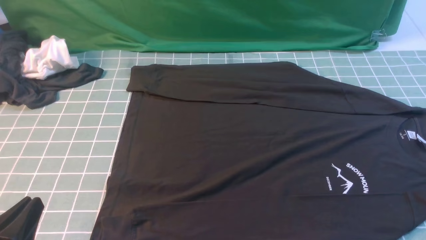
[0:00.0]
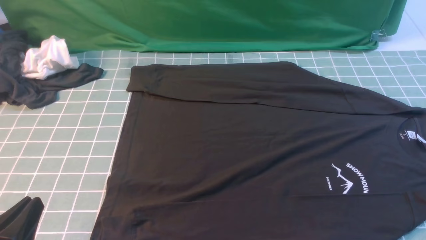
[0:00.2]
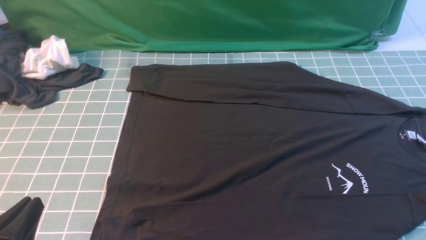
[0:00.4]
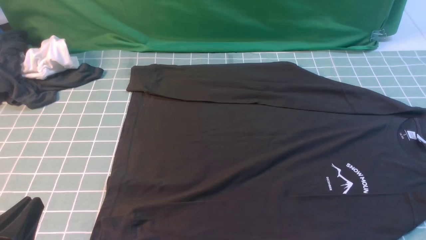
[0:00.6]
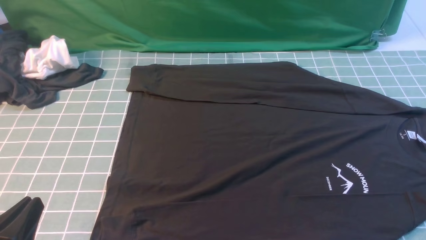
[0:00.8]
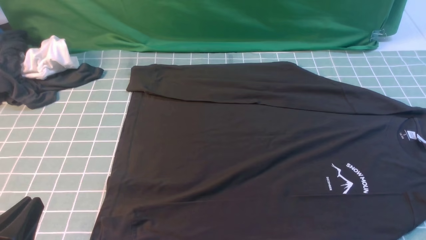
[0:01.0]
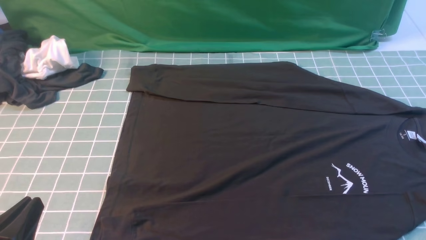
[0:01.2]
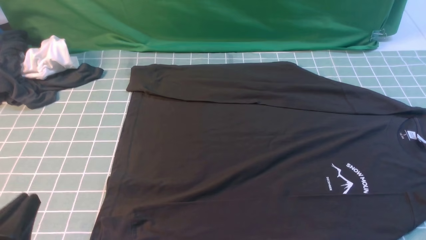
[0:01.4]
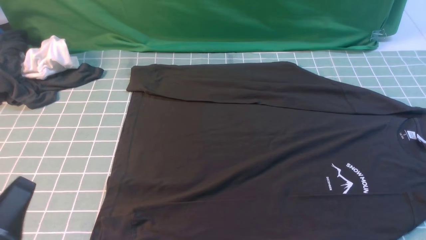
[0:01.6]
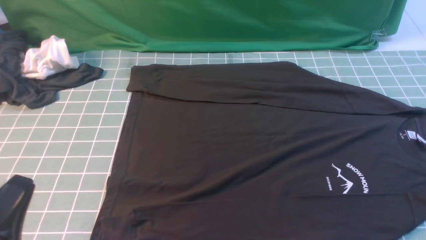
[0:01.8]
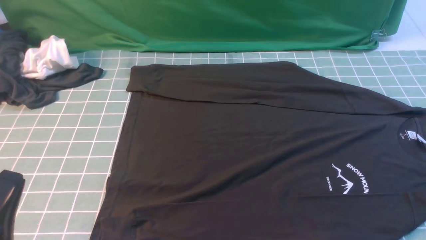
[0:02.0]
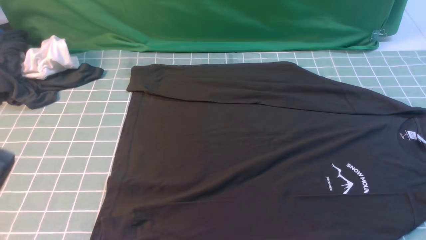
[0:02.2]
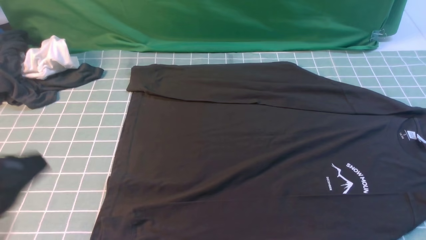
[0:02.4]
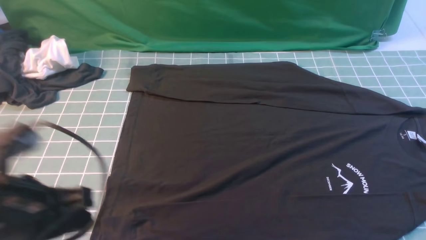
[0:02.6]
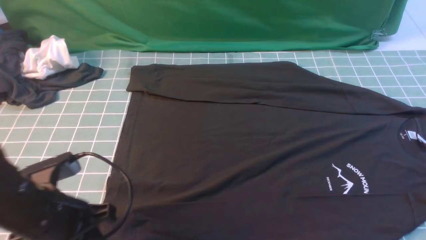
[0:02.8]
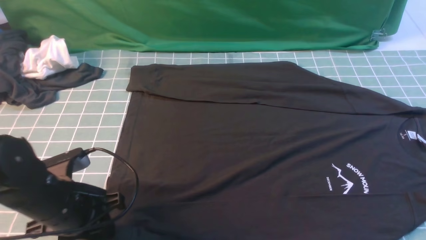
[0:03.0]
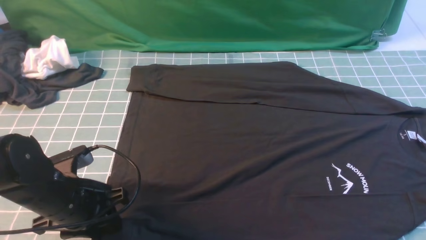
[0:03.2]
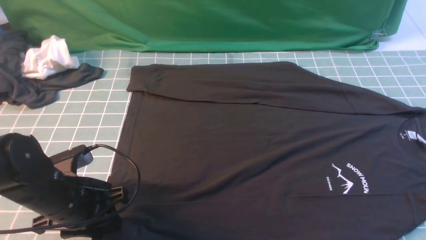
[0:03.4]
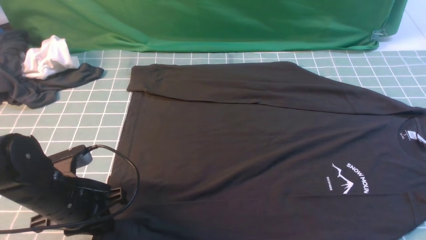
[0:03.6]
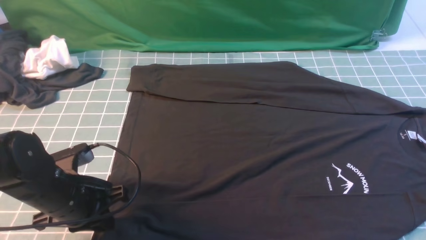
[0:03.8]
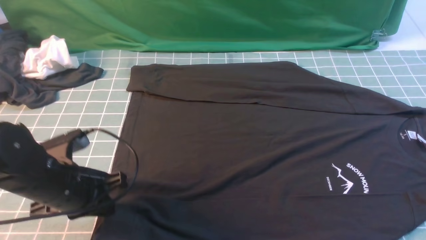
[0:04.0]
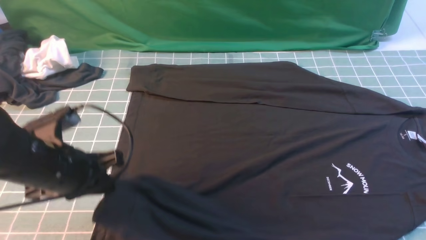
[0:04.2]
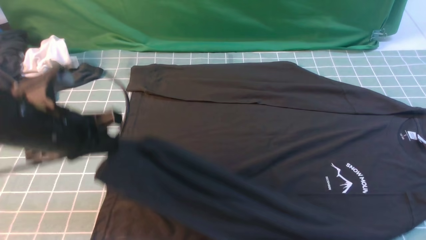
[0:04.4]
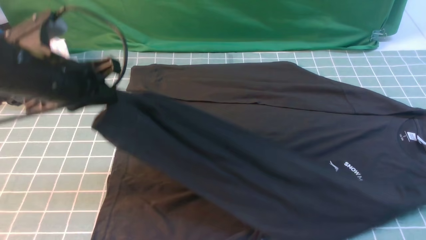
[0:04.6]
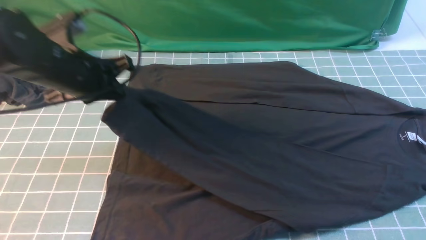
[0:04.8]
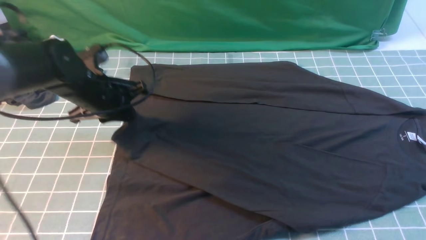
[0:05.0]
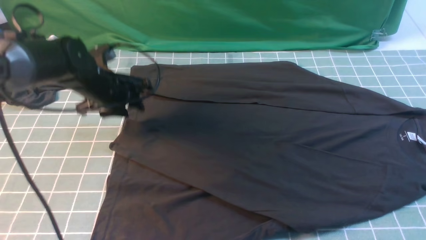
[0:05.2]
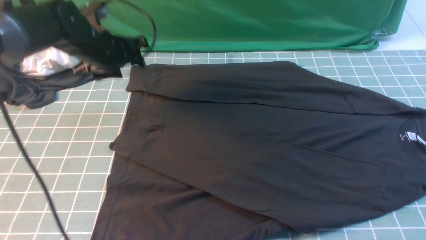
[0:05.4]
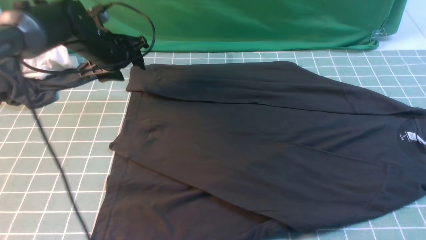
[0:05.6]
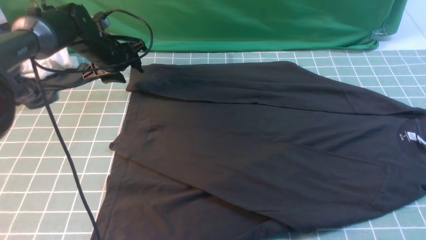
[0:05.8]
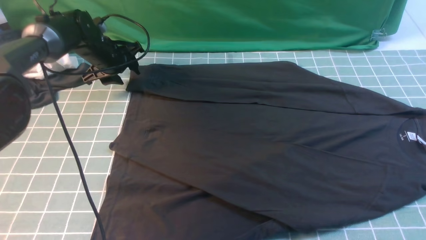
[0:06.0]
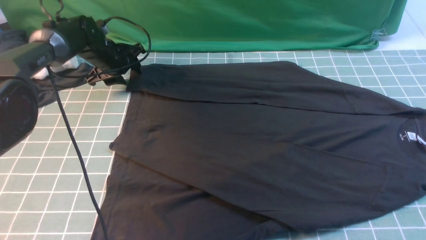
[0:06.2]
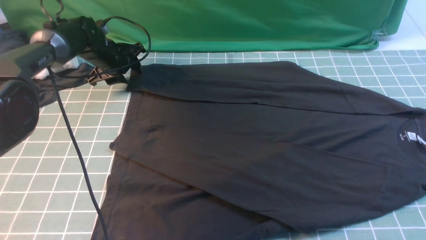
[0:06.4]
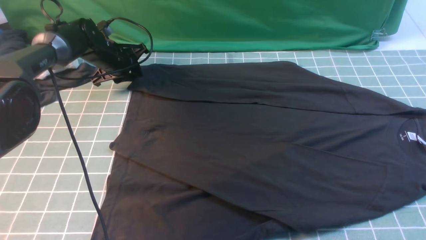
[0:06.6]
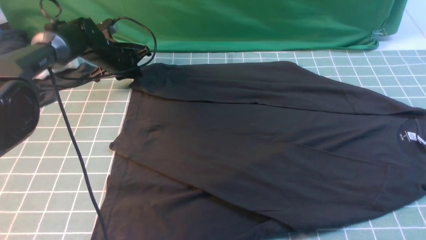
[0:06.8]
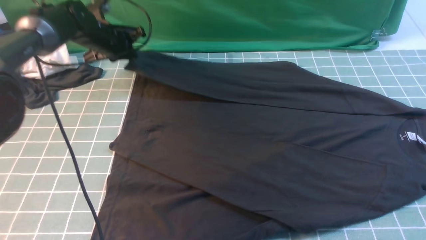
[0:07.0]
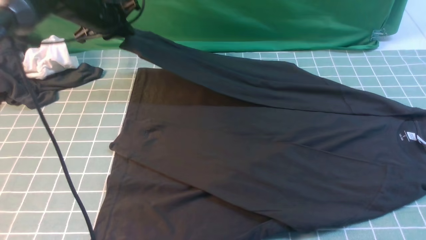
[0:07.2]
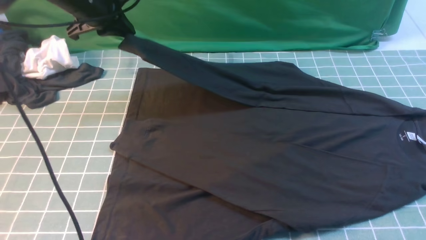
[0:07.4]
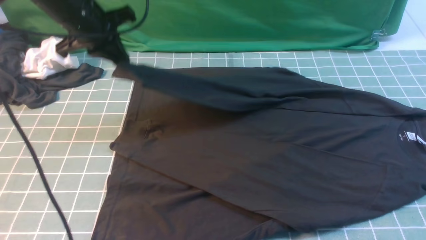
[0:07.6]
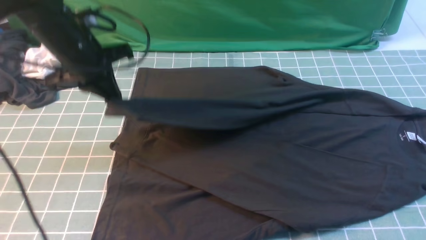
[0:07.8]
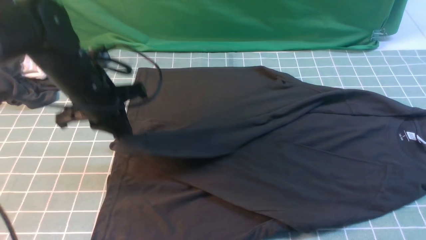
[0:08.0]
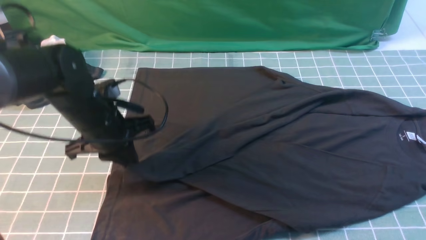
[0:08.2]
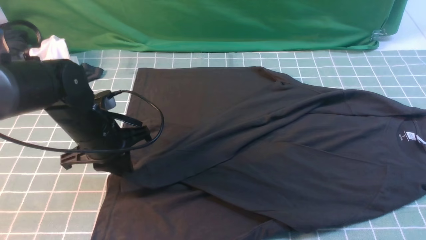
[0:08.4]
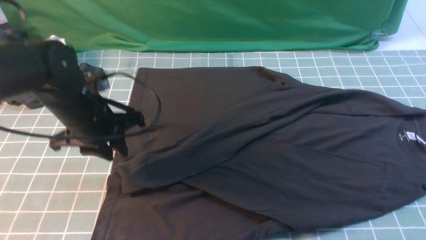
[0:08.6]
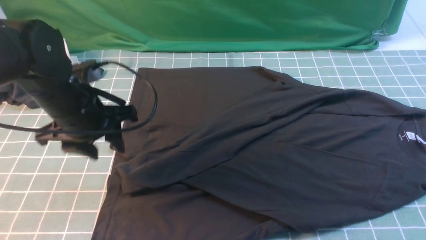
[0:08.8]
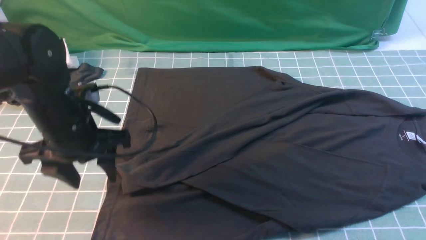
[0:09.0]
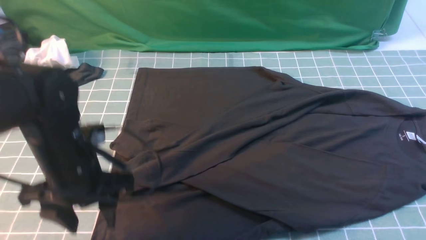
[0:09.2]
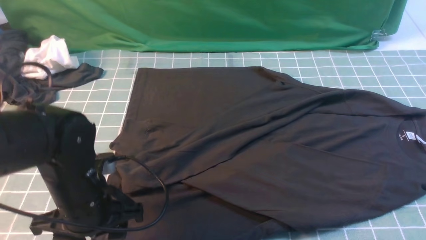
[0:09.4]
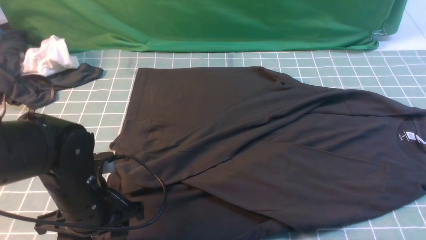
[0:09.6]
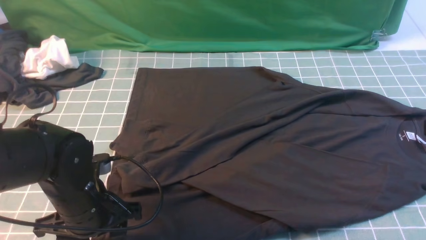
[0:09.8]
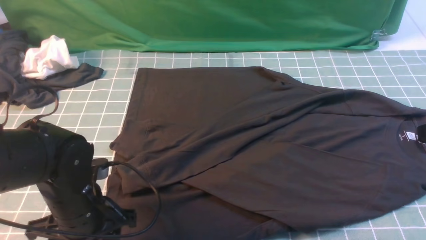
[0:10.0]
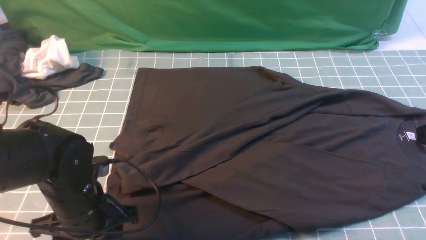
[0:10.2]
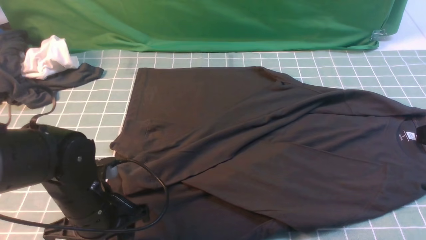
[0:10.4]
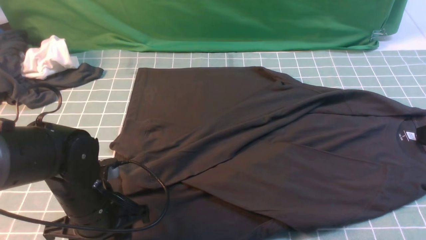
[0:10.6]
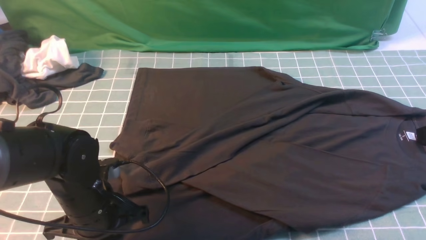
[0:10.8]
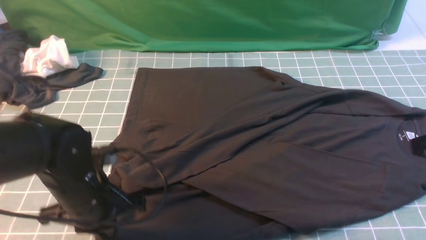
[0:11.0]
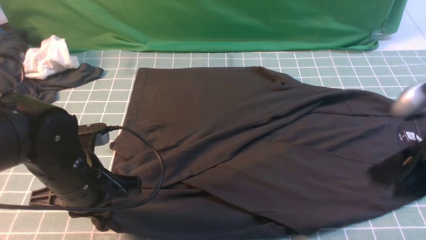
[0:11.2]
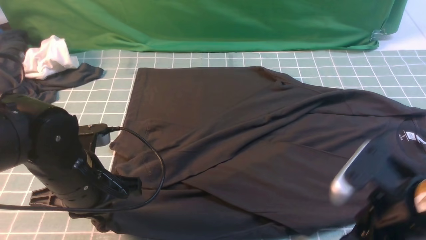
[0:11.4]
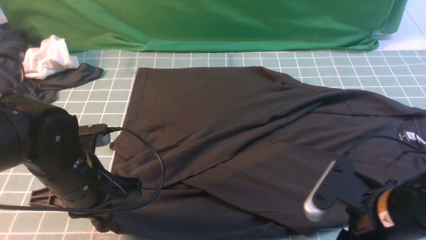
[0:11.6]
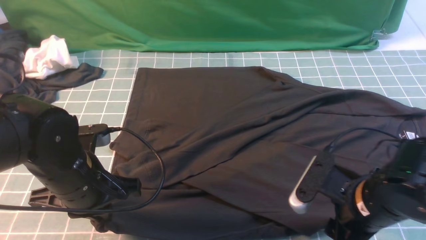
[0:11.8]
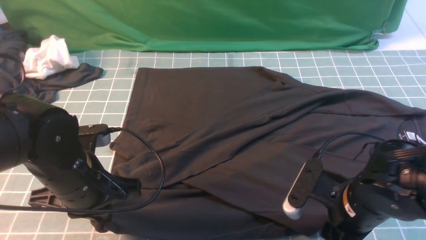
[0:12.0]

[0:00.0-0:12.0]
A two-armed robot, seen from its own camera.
Step, 0:00.0 to 0:04.0: use the left arm to clamp the cuff closest to it.
Step, 0:04.2 to 0:05.2: use the left arm to drag and place the cuff at the centered position on the left edge of the fabric.
Step, 0:05.4 to 0:06.8: use the left arm to clamp the cuff farthest from it.
Step, 0:07.0 to 0:08.4: use the left arm to drag and drop the cuff onto the cuff closest to the left arm.
0:01.6 to 0:03.0: The left gripper heads forward, covering approximately 15 cm. Meanwhile the right gripper goes roughly 15 cm upward and forward, and closes.
0:03.0 to 0:04.4: The left gripper moves upward and forward, approximately 10 cm, and closes its fingers.
0:04.4 to 0:06.0: The left gripper is displaced forward by about 25 cm, and opens.
0:06.0 to 0:07.6: The left gripper shifts some 15 cm upward and backward, and closes its fingers.
0:07.6 to 0:09.0: The left gripper heads backward, covering about 15 cm, and opens up.
0:09.0 to 0:10.4: The left gripper shifts roughly 10 cm downward and backward.
0:10.4 to 0:12.0: The left gripper heads upward, covering about 5 cm, and closes. Meanwhile the right gripper travels downward and to the left by roughly 20 cm, and opens.

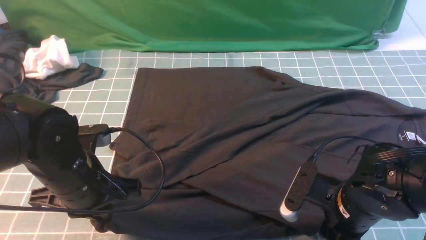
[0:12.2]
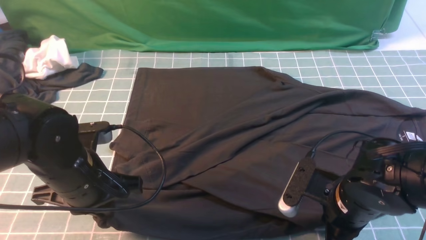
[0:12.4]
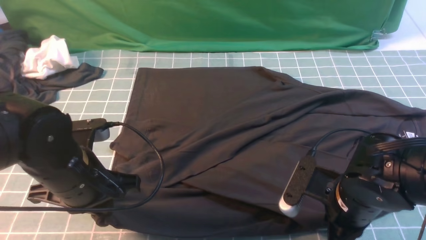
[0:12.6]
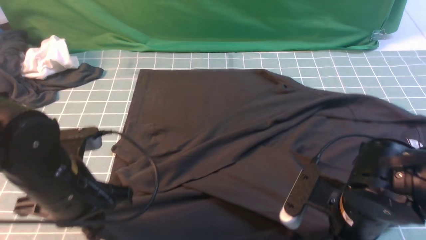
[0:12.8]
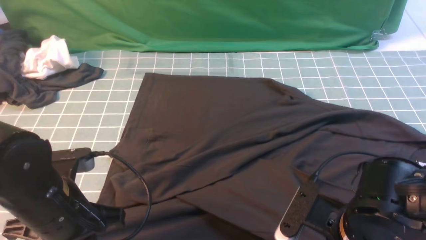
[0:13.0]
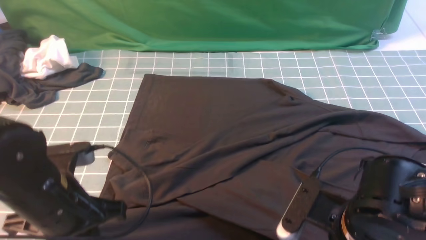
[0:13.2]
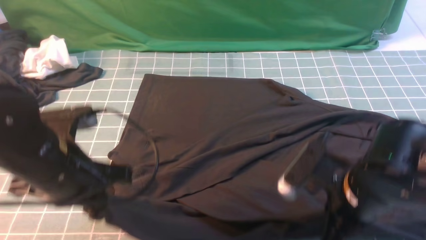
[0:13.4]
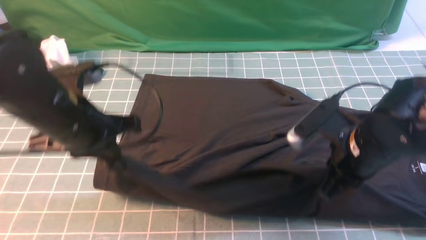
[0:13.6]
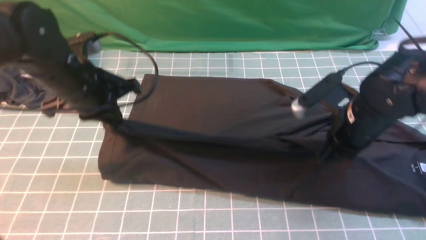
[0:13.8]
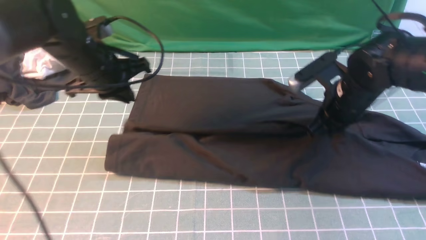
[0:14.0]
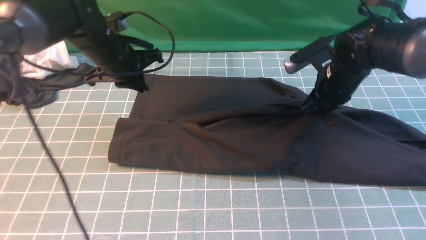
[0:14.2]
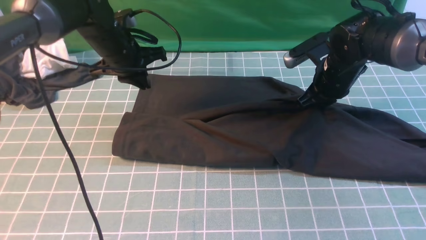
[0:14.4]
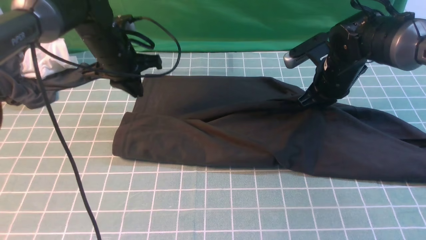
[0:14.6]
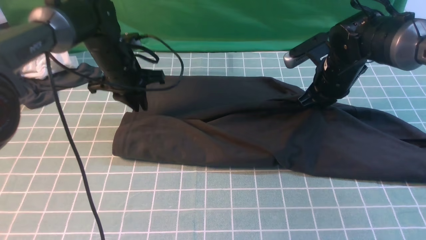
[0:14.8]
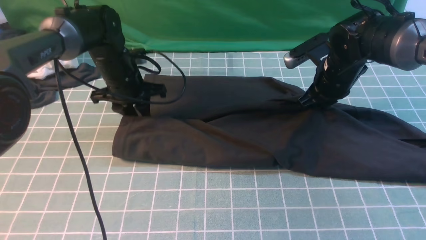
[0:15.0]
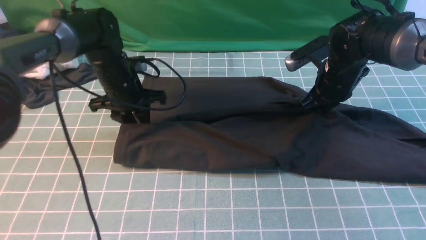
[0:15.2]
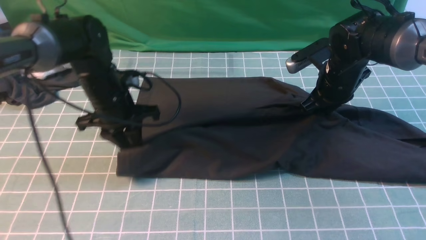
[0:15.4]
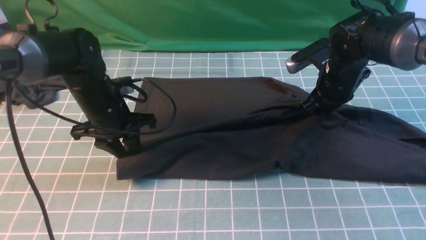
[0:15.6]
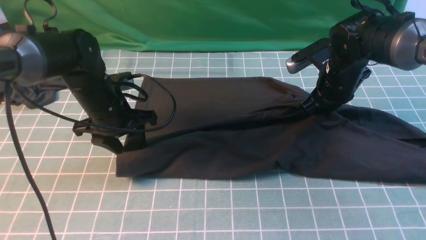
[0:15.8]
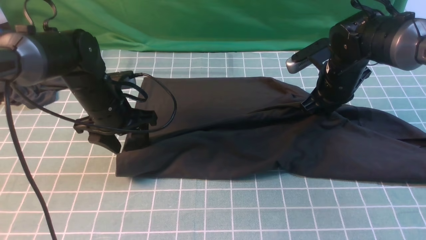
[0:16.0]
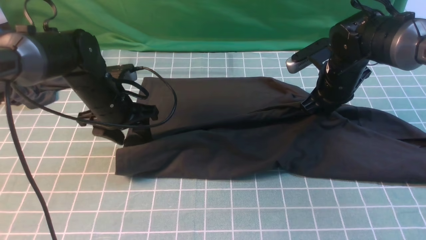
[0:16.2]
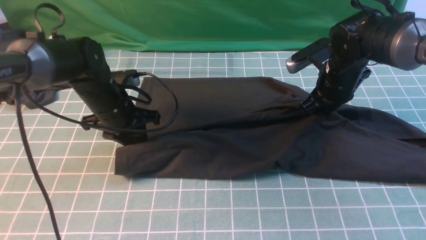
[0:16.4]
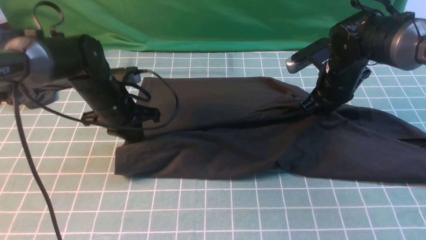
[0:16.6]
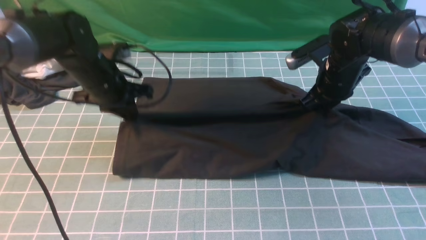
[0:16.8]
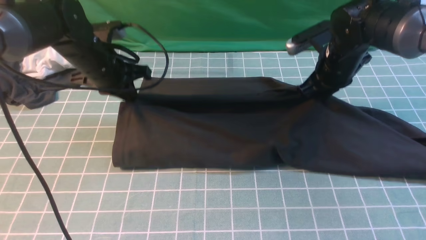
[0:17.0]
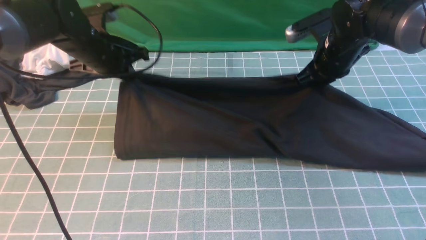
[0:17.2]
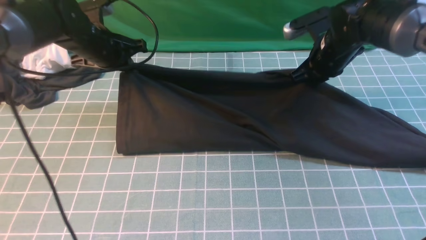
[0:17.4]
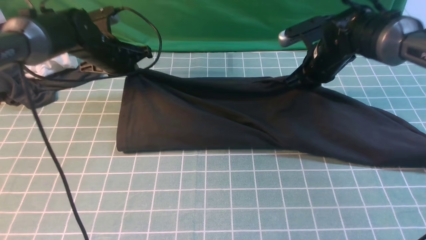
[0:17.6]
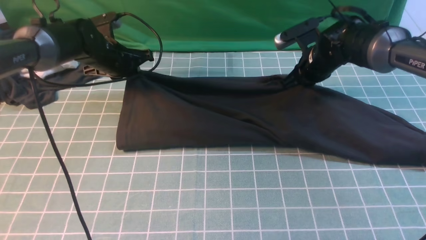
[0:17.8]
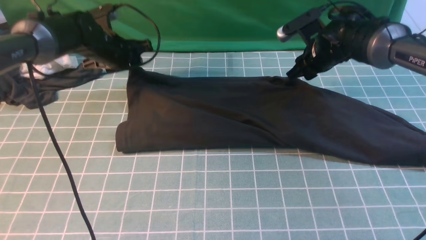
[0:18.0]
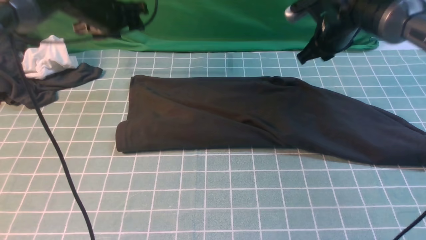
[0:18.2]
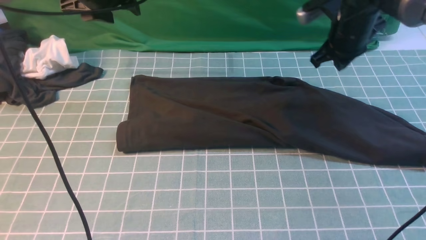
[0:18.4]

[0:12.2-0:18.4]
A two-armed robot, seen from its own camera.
Step, 0:12.8 to 0:18.2: use both arms to drag the lower edge of the fabric forward and fold it over the upper edge.
0:12.2 to 0:13.8: The two grippers go about 15 cm forward and upward. The right gripper closes its fingers.
0:13.8 to 0:15.4: The right gripper heads forward, covering about 10 cm, while the left gripper goes about 10 cm downward and forward.
0:15.4 to 0:16.8: The left gripper opens, then closes again.
0:16.8 to 0:18.4: The right gripper ends up some 5 cm from where it was, and opens and closes again, while the left gripper travels upward and forward by about 15 cm, and opens its fingers.
